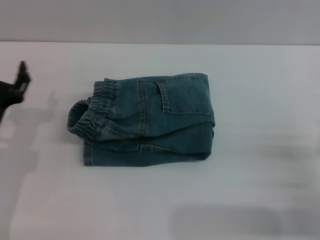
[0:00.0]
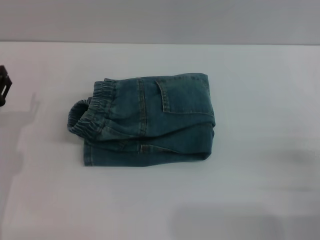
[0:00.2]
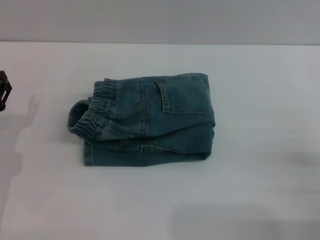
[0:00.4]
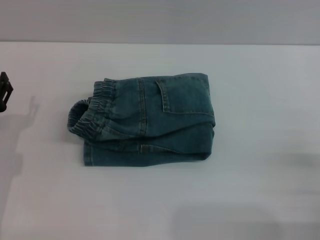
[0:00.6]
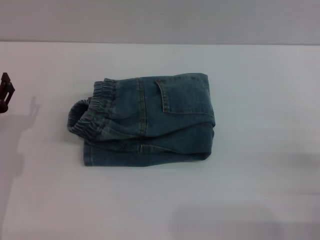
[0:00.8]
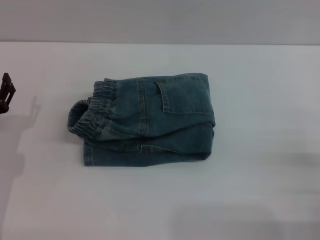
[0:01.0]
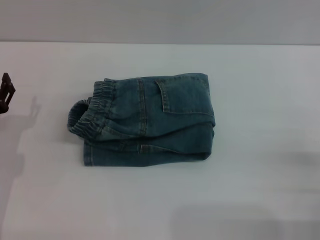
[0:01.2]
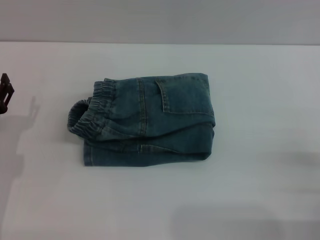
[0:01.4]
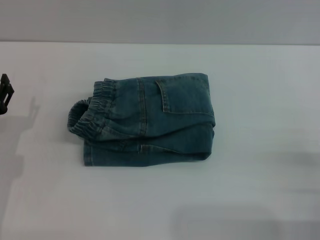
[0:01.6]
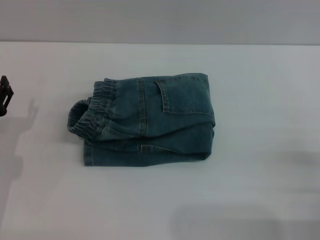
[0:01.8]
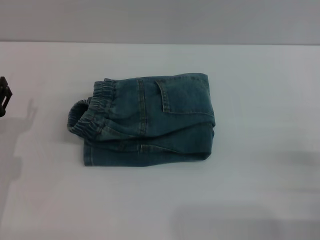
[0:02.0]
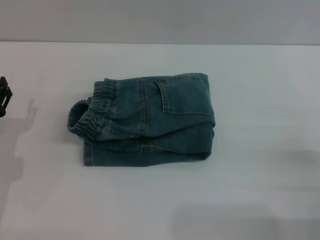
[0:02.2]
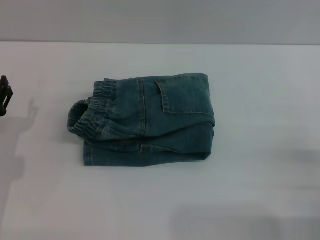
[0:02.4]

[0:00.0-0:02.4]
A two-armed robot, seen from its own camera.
0:01.2 to 0:02.4: The two grippers keep their place.
